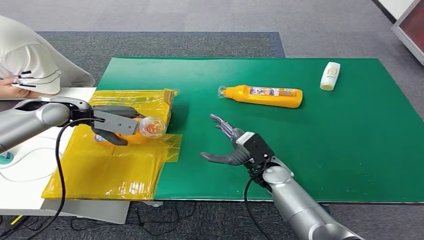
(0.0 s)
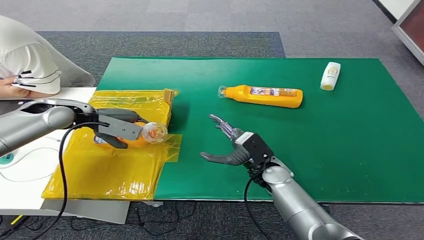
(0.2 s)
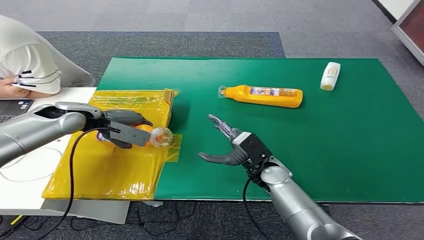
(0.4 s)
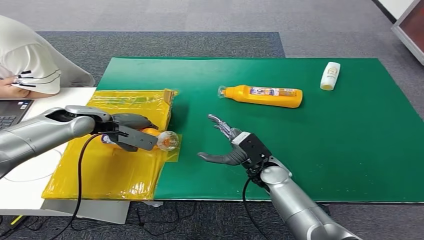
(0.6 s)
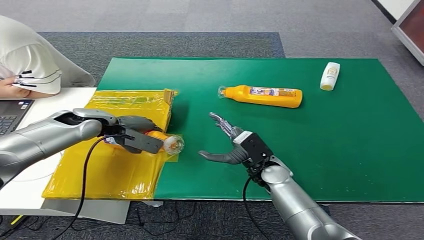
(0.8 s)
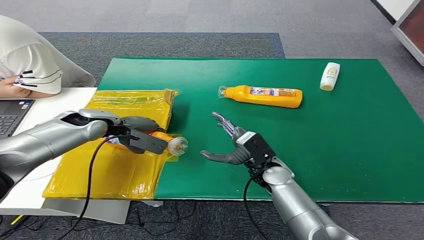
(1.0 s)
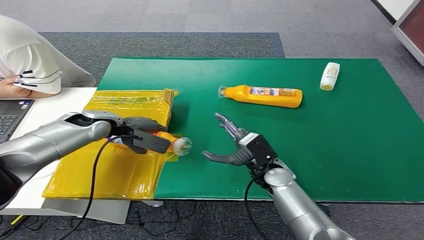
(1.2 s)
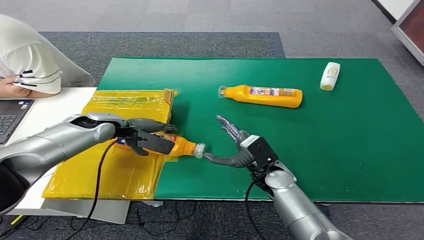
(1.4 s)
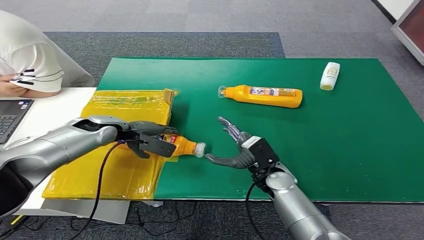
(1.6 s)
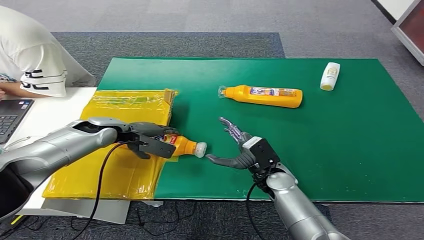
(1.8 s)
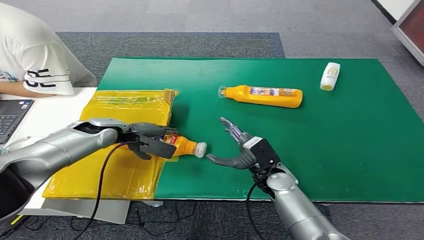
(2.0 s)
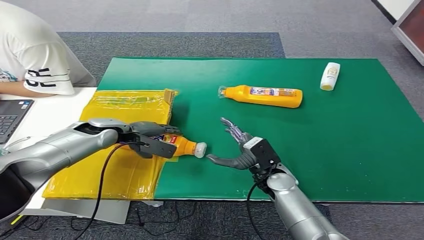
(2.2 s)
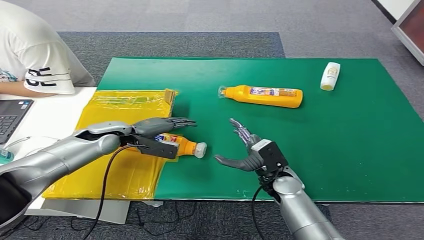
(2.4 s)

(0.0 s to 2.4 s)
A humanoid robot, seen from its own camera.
Step, 0.0 s - 2.4 s: Turn the bottle to the front side.
0.0 s - 1.2 s: The left hand shifts about 10 cm downward and to the right.

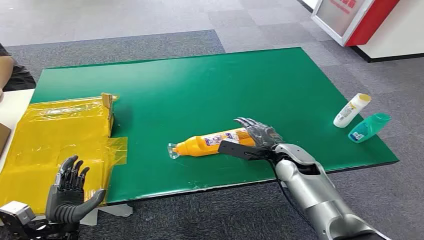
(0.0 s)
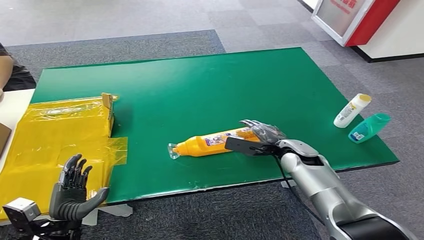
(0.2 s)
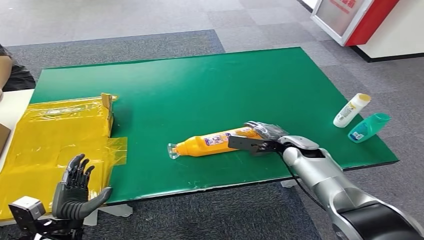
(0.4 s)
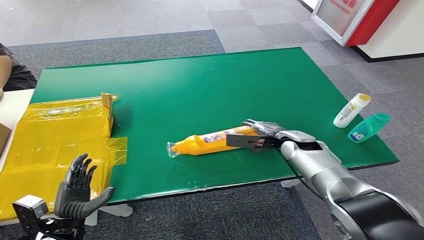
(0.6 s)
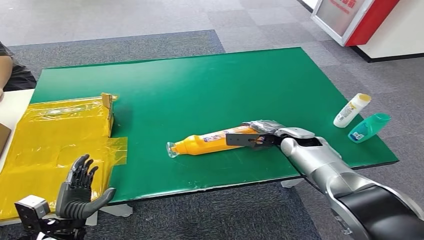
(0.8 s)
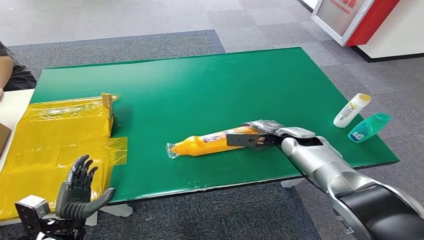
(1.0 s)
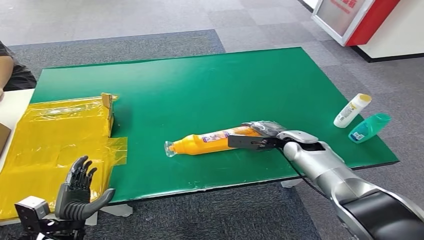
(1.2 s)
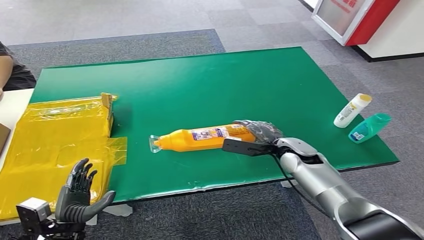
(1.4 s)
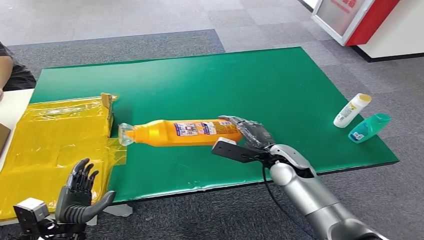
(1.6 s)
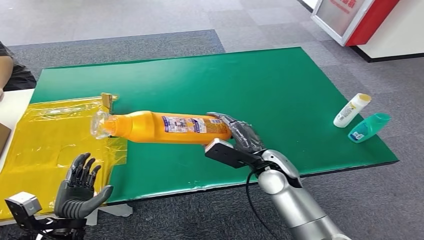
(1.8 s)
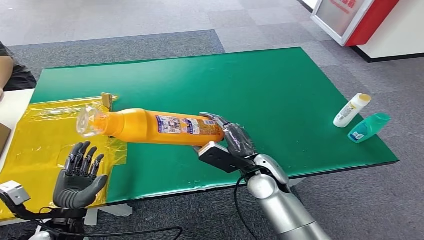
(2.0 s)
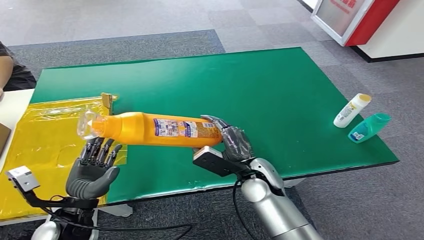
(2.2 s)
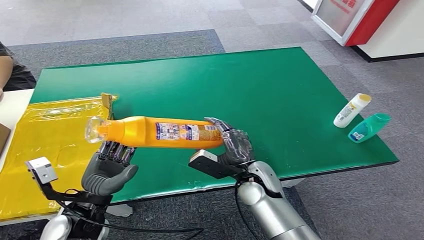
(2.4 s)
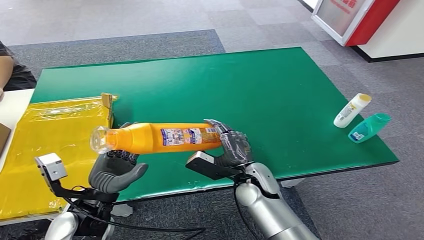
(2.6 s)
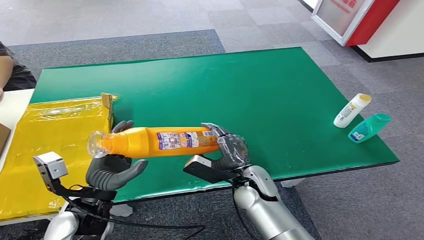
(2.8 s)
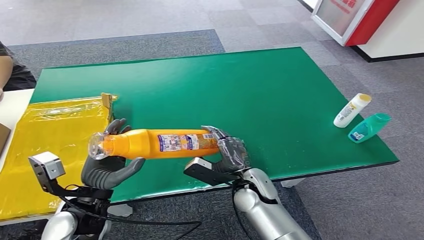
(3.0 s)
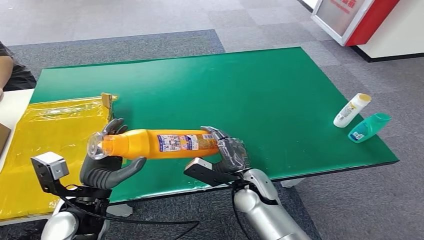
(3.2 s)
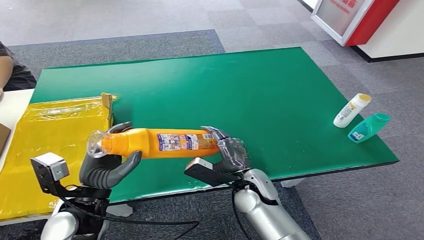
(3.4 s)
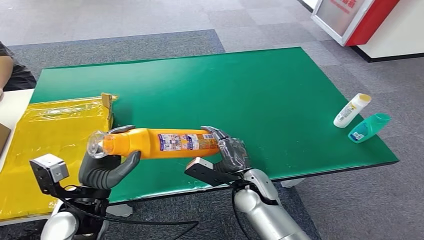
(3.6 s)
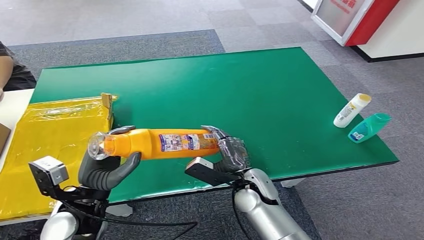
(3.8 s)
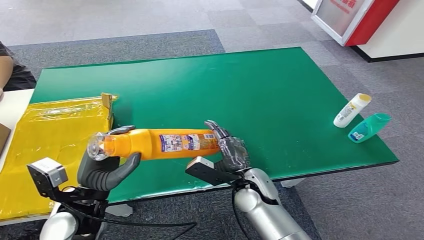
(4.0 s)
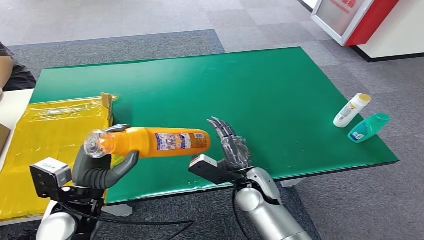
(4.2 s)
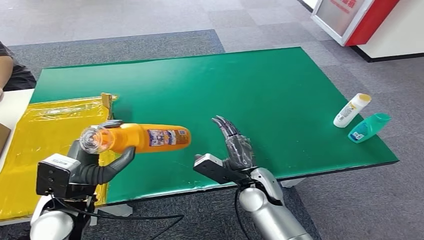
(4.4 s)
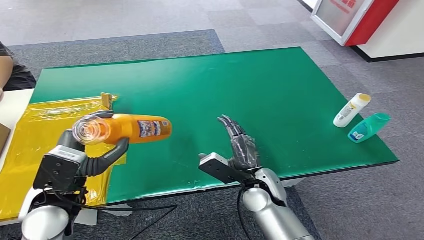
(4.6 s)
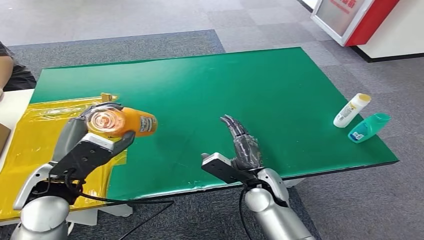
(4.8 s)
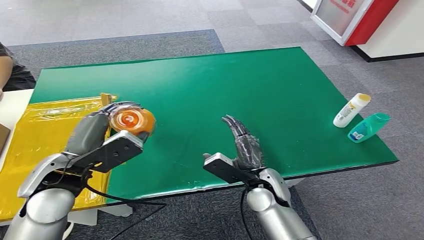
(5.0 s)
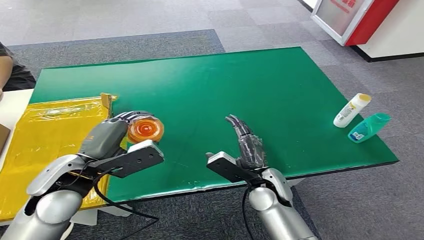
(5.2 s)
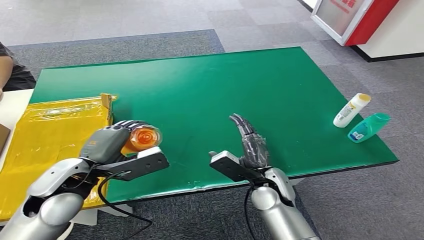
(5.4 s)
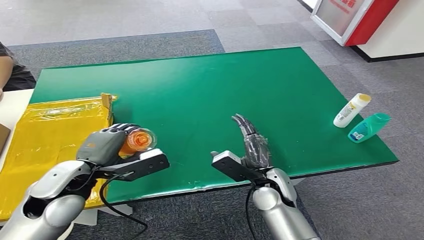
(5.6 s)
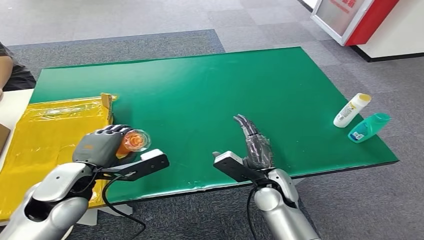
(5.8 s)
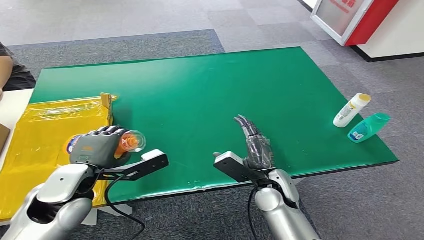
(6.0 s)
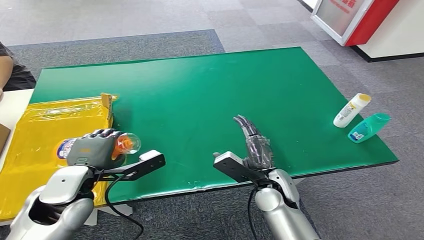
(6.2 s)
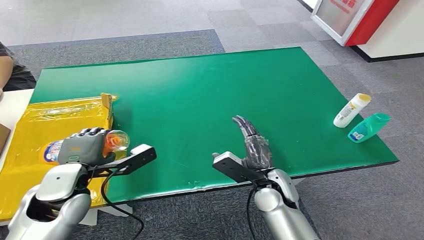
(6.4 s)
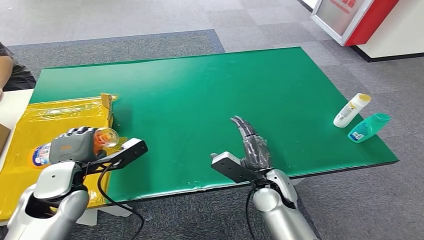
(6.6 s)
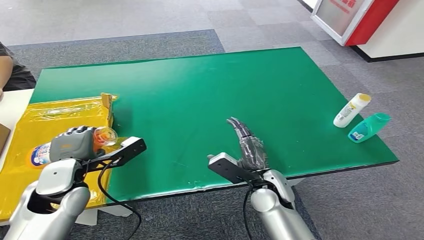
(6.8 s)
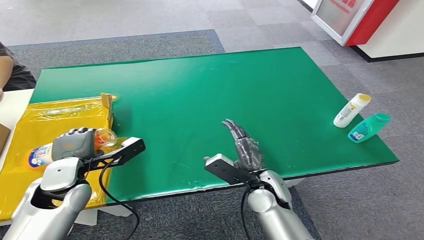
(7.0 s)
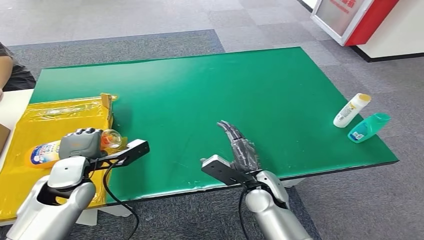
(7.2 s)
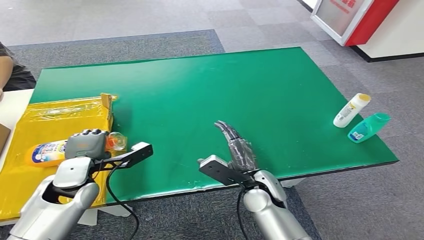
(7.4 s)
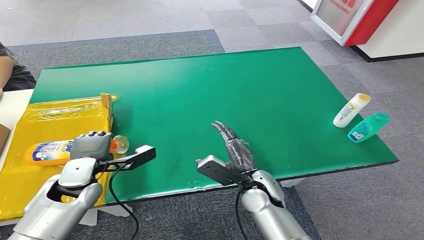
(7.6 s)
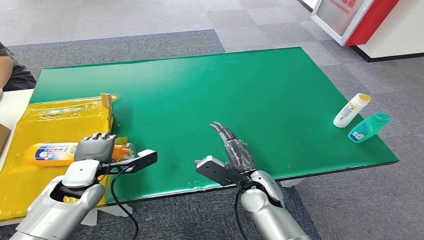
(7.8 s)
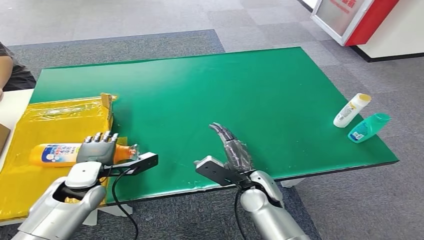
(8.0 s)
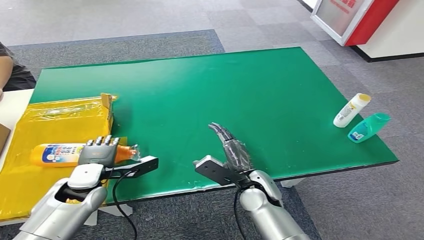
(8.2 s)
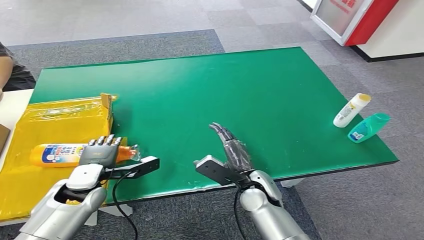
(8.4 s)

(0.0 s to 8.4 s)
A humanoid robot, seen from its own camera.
Step, 0.0 s - 2.0 s: Pick up the bottle from the table.
Step, 2.2 s - 8.4 s: Turn the bottle to the front side.
1.4 s - 2.8 s: The left hand travels upward, to the right and forward by about 15 cm. Meanwhile the right hand shifts approximately 15 cm to the left and backward.
4.2 s - 5.6 s: The left hand heads upward, covering approximately 5 cm.
5.6 s - 7.0 s: The left hand ends up roughly 5 cm from where it was.
7.0 s - 8.4 s: The left hand heads downward, covering some 5 cm.

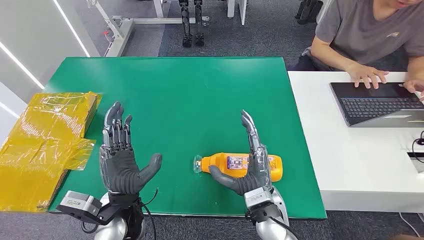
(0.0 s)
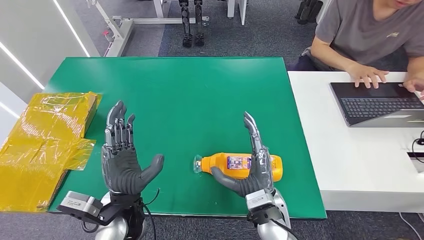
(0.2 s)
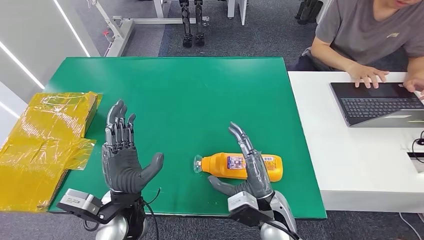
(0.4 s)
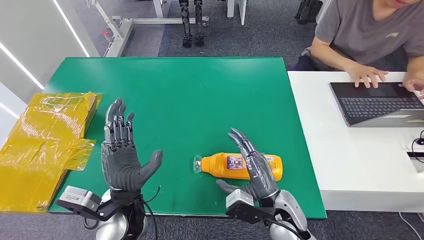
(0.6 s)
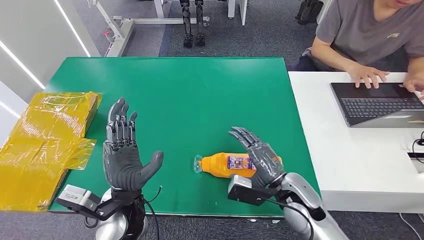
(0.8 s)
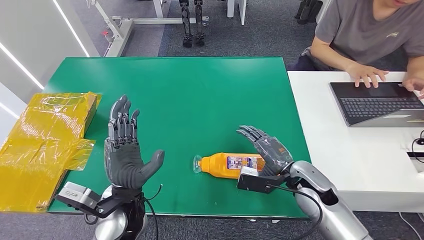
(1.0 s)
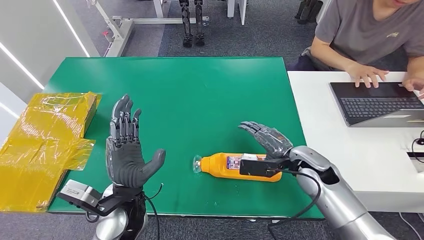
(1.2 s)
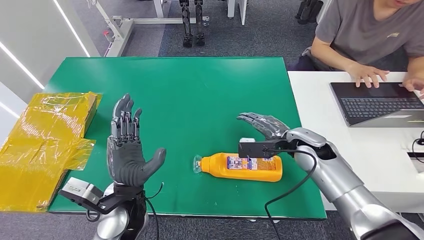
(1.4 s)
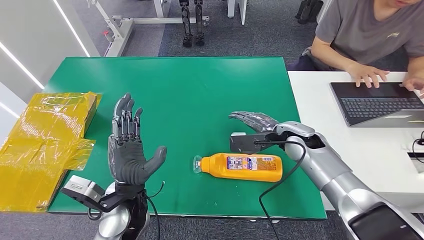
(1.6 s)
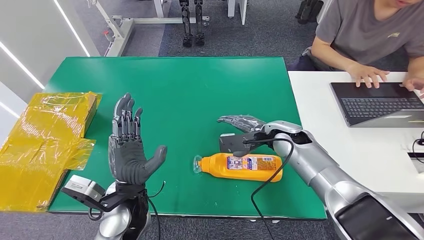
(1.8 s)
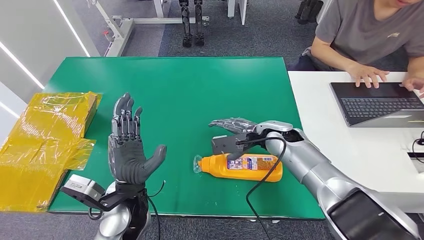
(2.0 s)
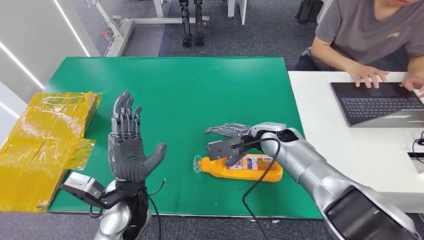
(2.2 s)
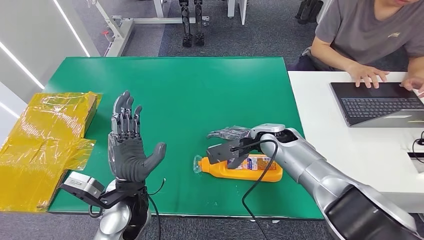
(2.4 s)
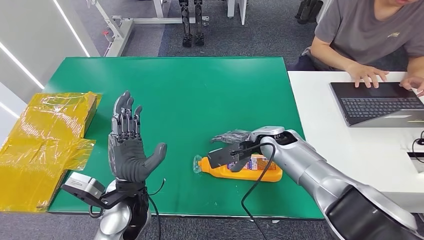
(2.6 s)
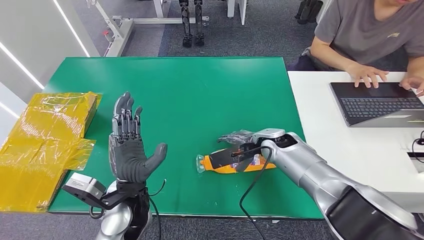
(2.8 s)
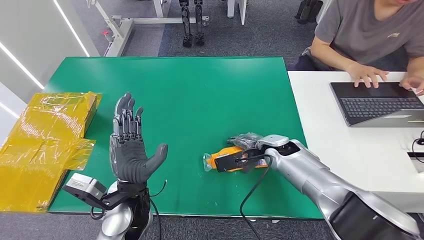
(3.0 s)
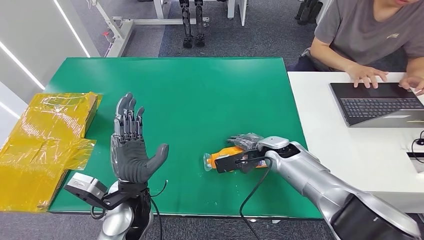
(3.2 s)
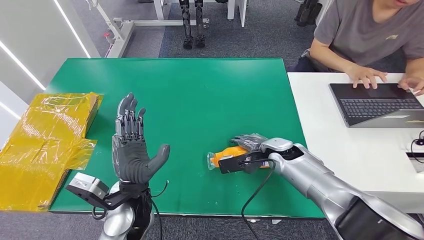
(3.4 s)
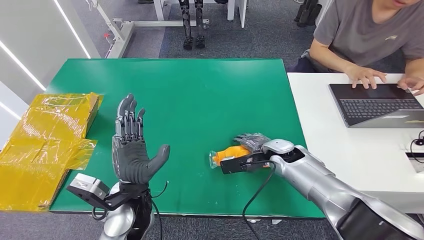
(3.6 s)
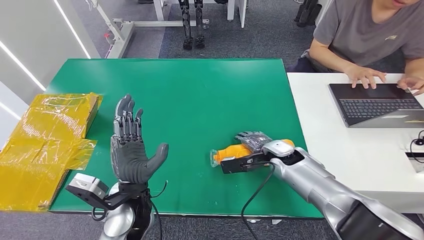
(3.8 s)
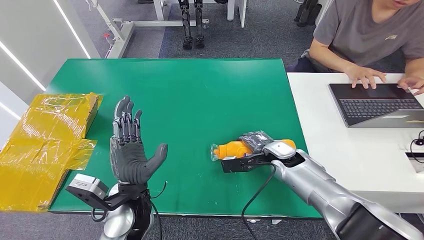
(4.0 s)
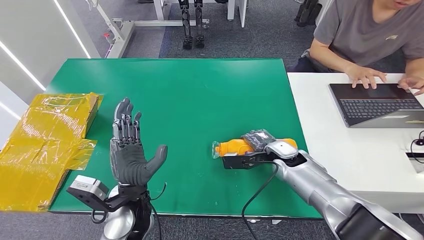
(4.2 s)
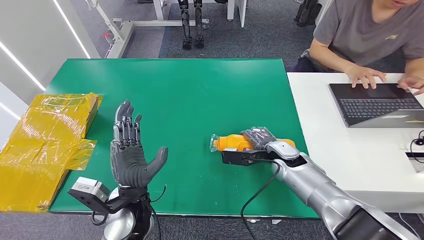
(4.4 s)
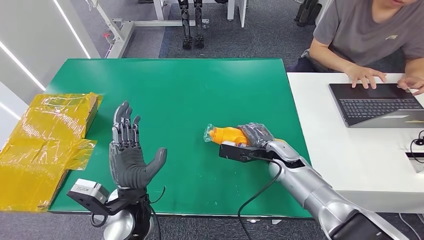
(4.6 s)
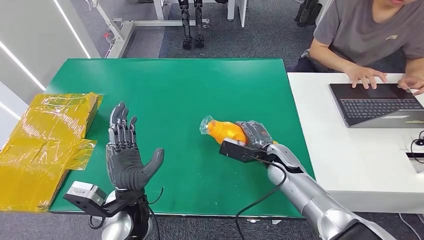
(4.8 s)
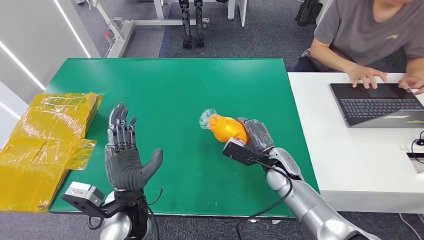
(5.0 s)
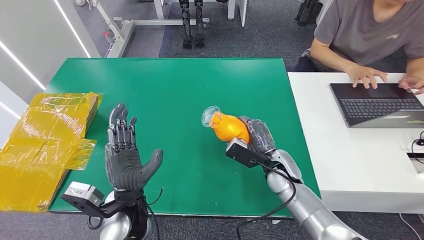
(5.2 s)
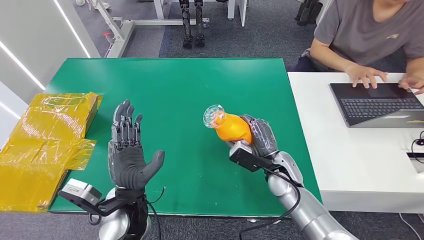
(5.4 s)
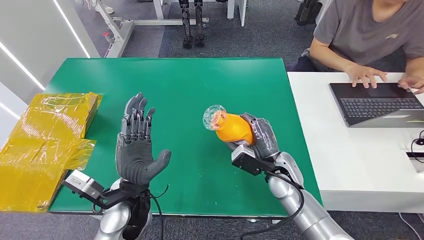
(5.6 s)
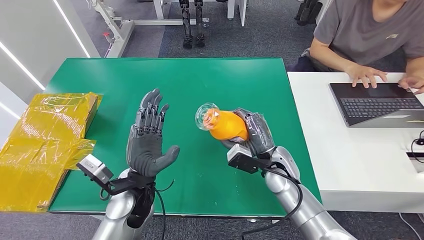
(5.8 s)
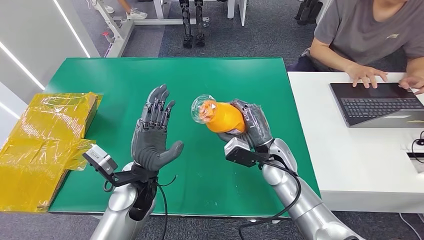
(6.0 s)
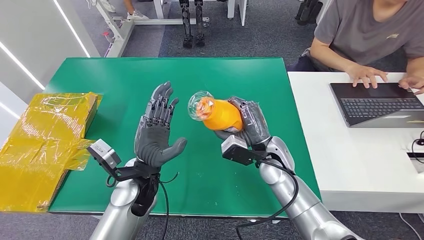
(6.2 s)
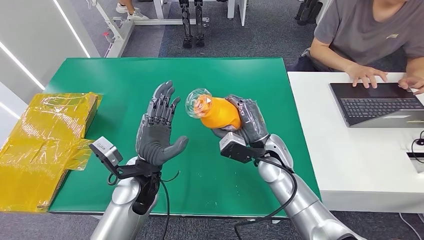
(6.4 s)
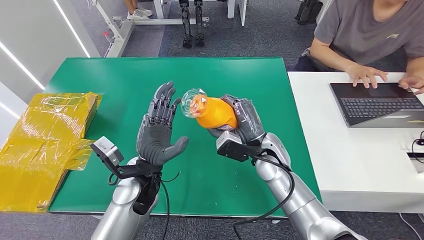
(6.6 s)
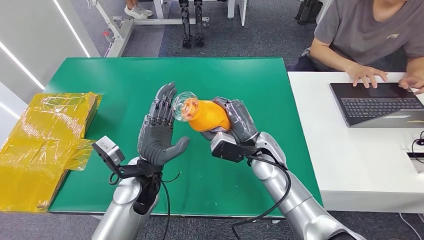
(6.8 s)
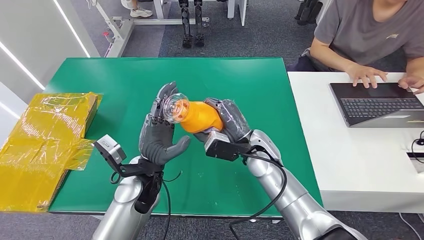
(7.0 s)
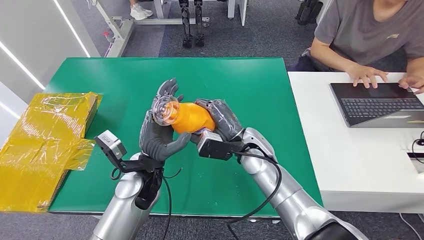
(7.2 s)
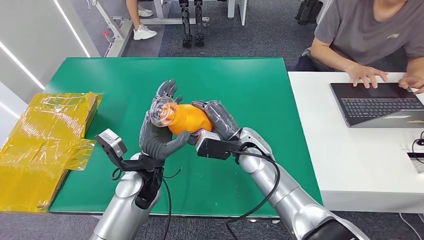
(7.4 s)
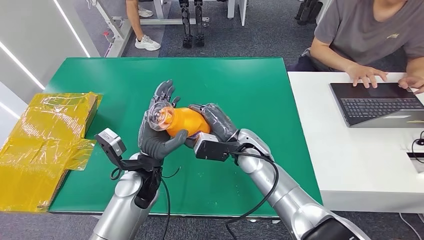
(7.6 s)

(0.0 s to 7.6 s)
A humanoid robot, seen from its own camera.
Step, 0.0 s - 7.4 s: Pick up the bottle from the table.
1.6 s - 3.0 s: The right hand changes place by some 5 cm.
4.6 s - 6.0 s: The right hand moves some 5 cm; the left hand travels forward by about 5 cm.
6.0 s - 7.6 s: The right hand is displaced to the left by about 5 cm.
